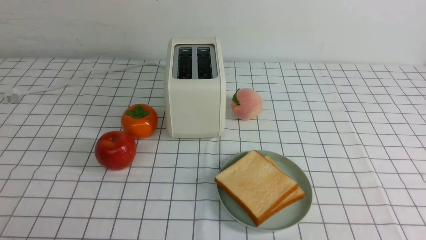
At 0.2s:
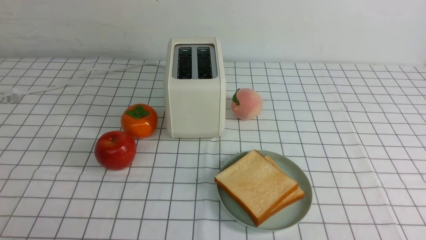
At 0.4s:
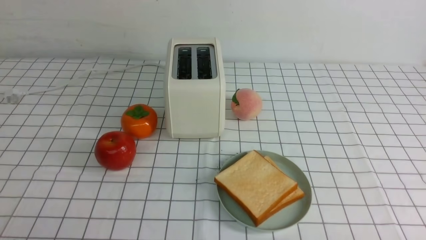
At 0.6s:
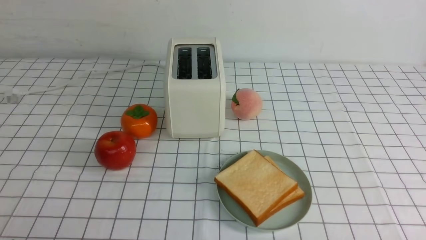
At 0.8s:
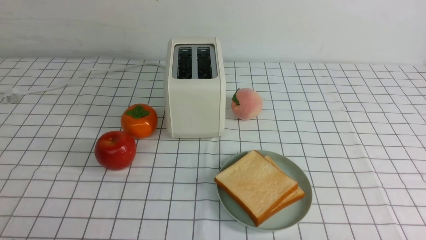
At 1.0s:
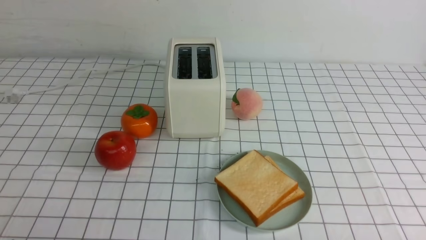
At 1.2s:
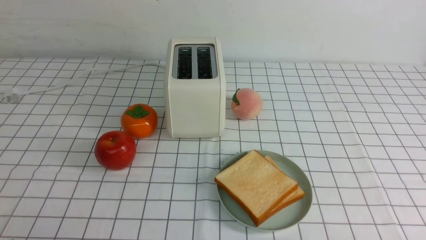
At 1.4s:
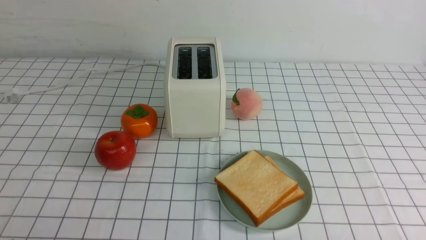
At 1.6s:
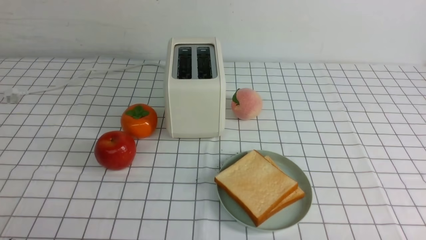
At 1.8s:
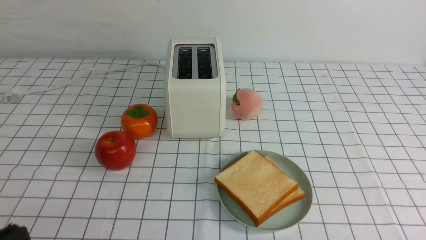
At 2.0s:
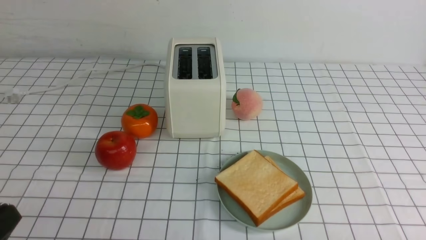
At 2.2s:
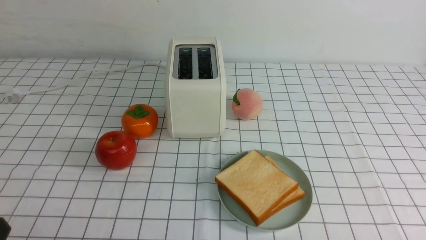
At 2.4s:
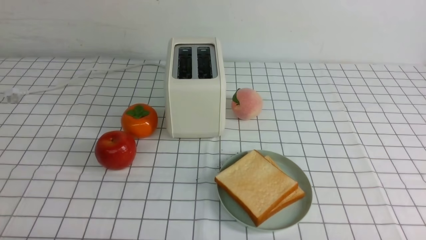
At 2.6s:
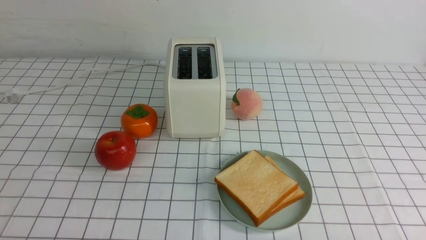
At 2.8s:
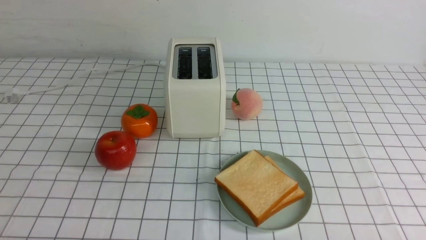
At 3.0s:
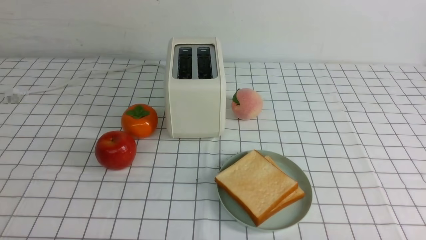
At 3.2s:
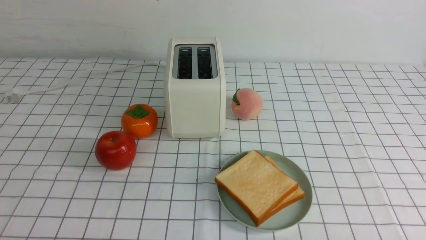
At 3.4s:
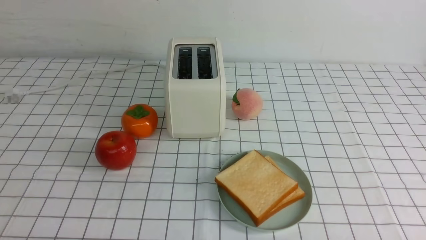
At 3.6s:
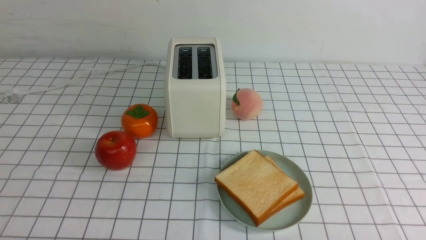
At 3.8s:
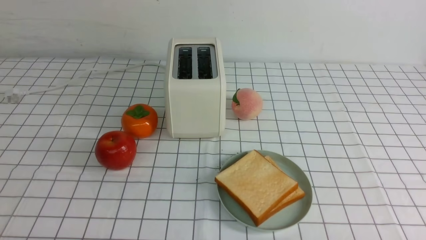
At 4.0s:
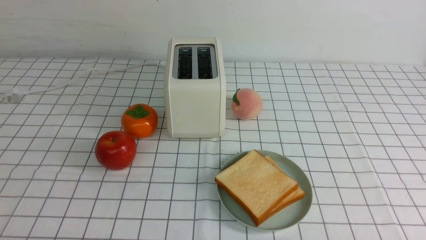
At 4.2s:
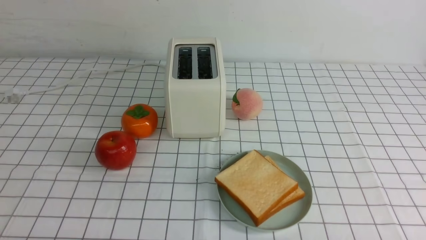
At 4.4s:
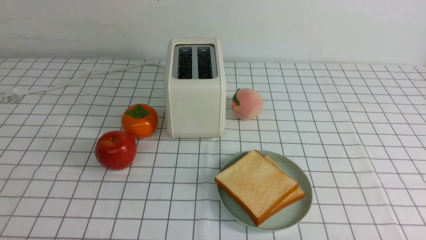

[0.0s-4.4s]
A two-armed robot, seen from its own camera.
Task of the whole recording: take toasted bread from bread machine on white checkered table place on plate.
3.0s to 4.4s: Both grippers stay about where they are.
